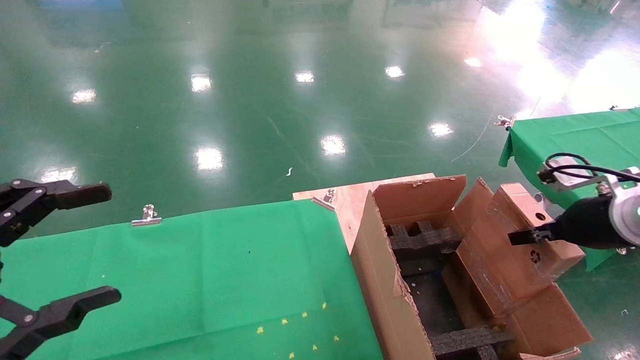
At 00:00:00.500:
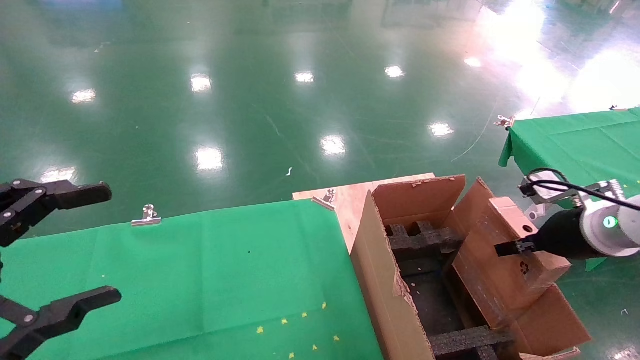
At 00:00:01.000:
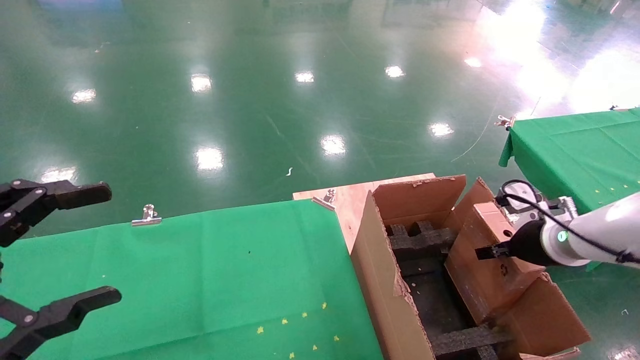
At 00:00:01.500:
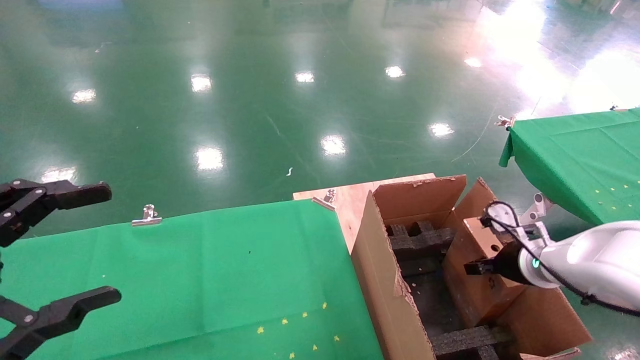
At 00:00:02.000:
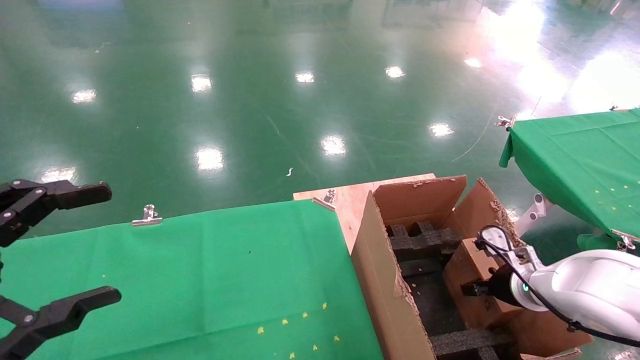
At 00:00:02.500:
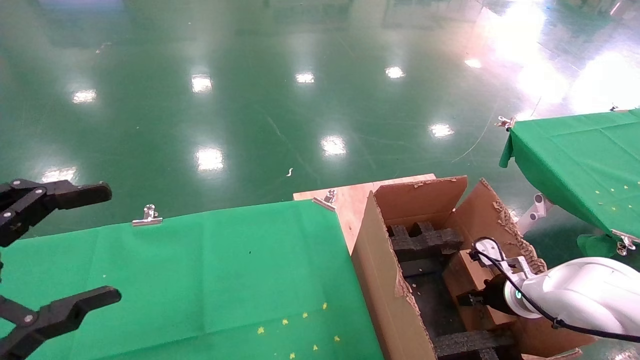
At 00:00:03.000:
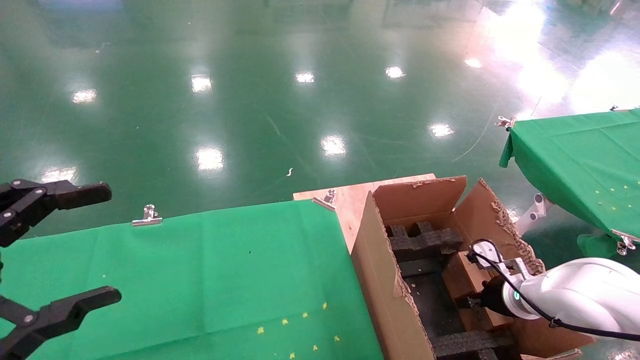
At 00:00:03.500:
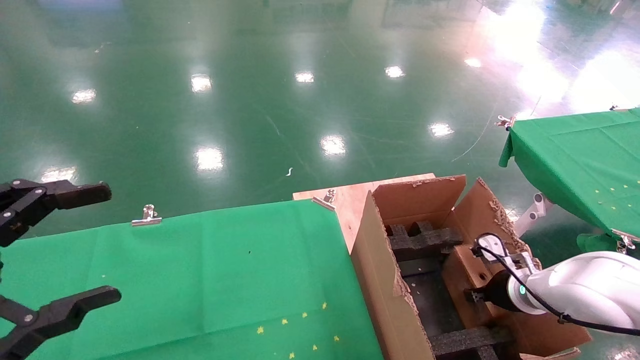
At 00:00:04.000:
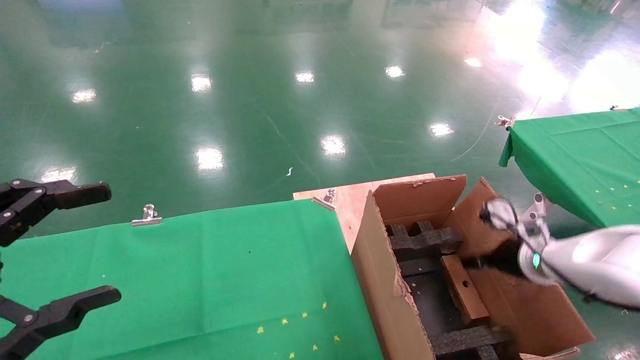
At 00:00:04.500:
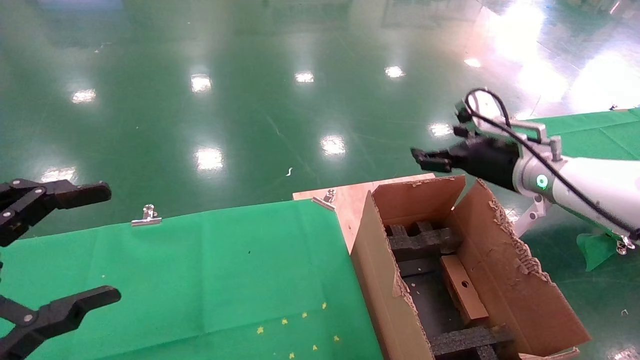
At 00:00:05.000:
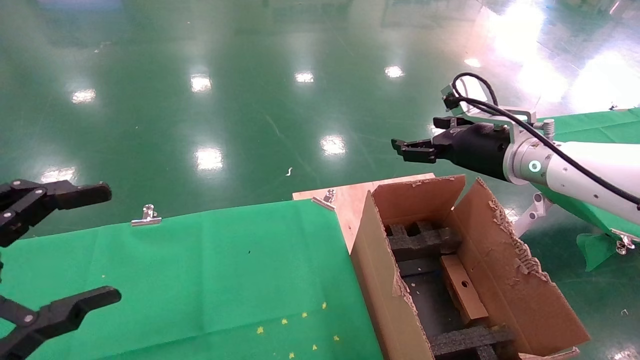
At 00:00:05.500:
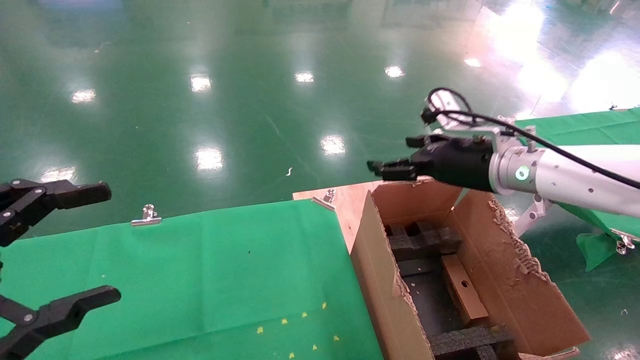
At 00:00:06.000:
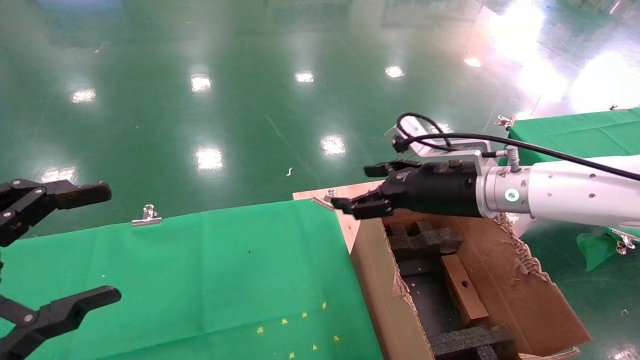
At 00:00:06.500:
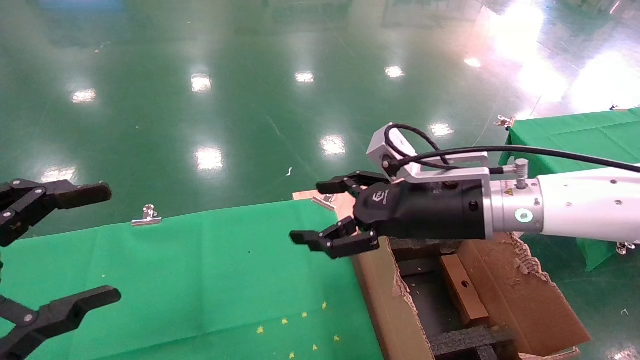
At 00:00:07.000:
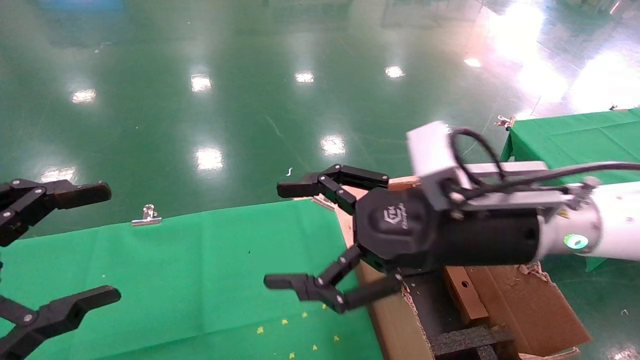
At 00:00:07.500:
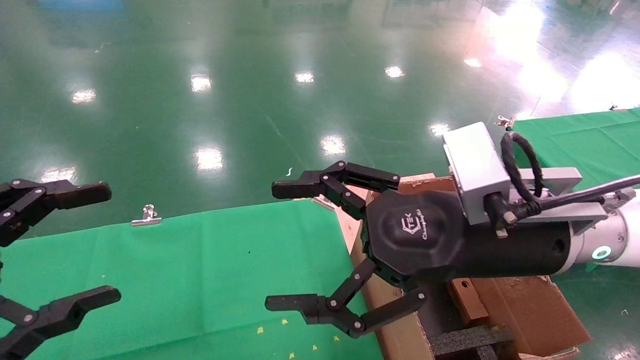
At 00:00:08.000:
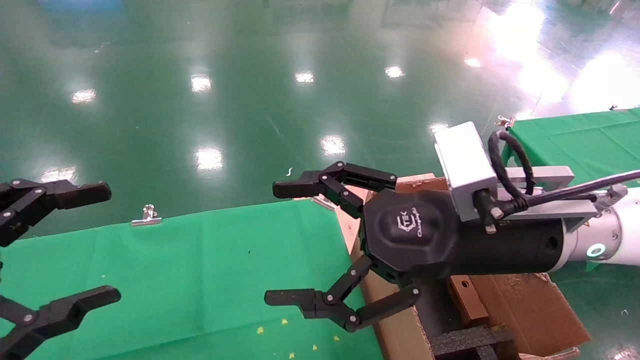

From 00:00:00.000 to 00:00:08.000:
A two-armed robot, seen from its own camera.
Task of the whole recording: using a robotic arm to pick up a cardboard box and palace it the carton.
Step, from 00:00:00.000 to 00:00:04.000: Place the mouse and the power cord paper box into the container.
From 00:00:00.000 to 00:00:02.000: The right gripper is displaced downward and forward by roughly 20 cm.
From 00:00:02.000 to 00:00:04.000: The right gripper shifts roughly 5 cm upward, and opens up.
From 00:00:04.000 to 00:00:06.000: The right gripper travels to the left and upward by roughly 20 cm.
From 00:00:06.000 to 00:00:08.000: The right gripper goes about 10 cm backward.
